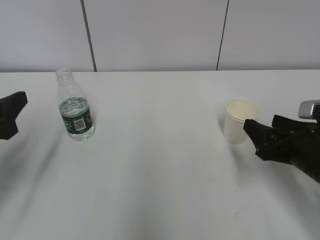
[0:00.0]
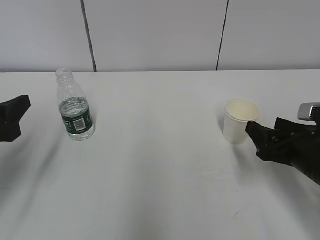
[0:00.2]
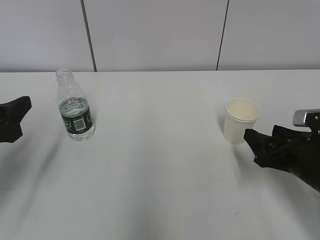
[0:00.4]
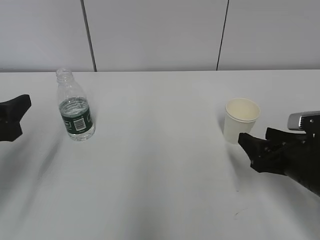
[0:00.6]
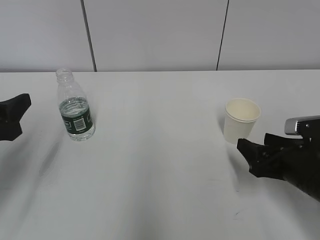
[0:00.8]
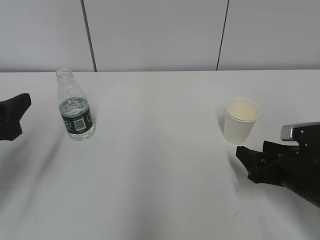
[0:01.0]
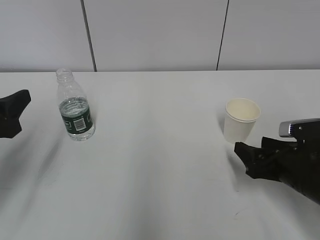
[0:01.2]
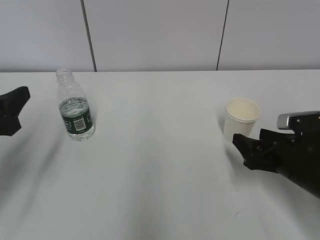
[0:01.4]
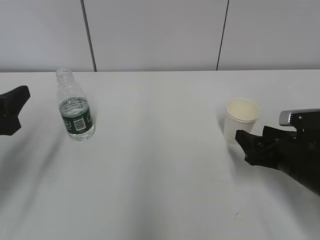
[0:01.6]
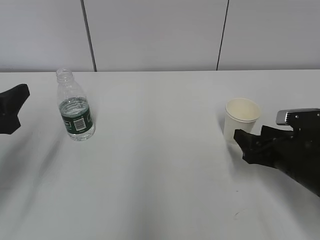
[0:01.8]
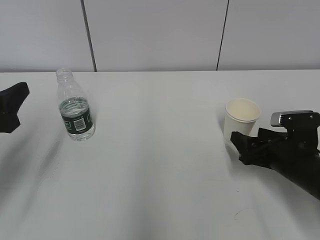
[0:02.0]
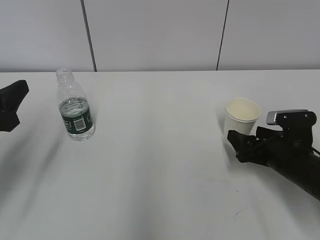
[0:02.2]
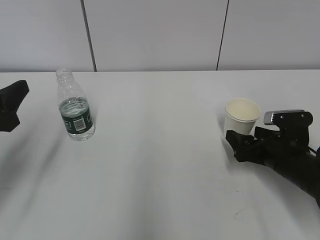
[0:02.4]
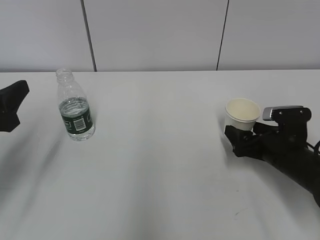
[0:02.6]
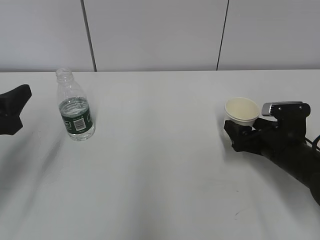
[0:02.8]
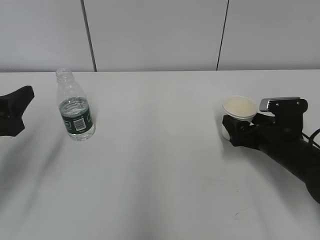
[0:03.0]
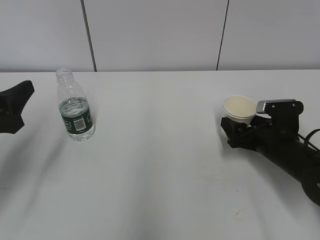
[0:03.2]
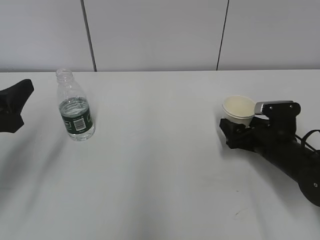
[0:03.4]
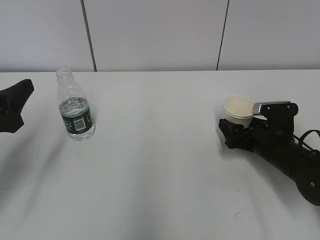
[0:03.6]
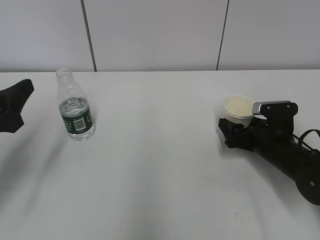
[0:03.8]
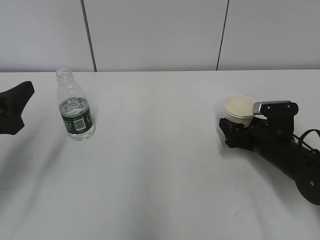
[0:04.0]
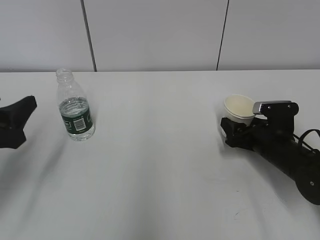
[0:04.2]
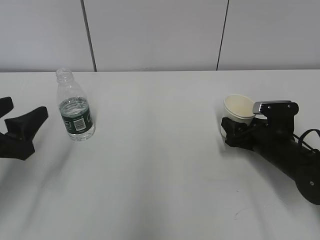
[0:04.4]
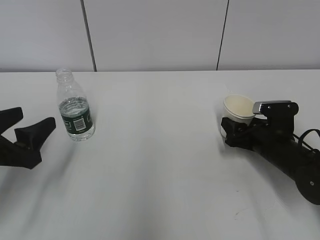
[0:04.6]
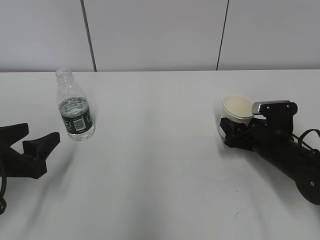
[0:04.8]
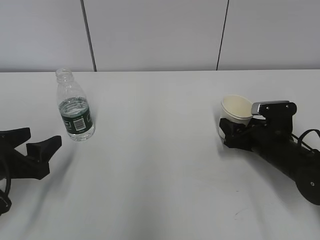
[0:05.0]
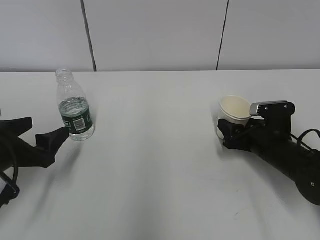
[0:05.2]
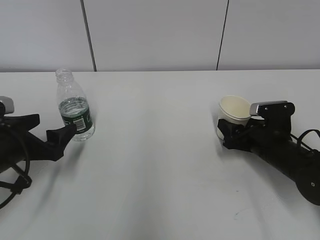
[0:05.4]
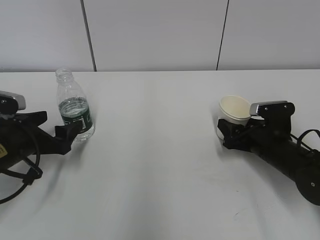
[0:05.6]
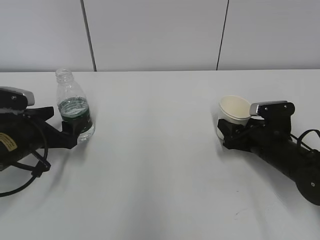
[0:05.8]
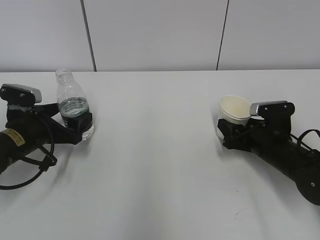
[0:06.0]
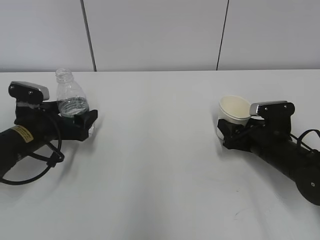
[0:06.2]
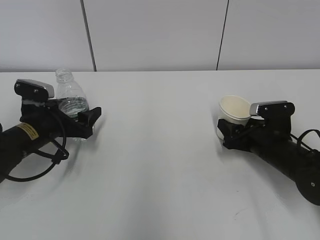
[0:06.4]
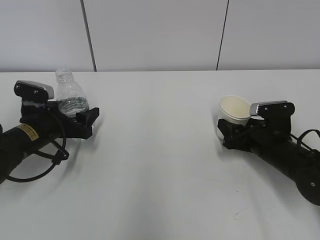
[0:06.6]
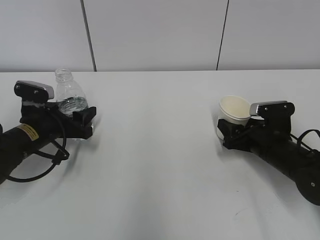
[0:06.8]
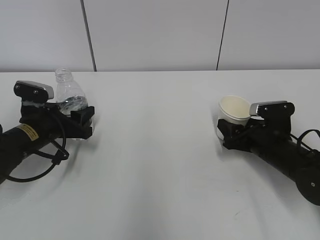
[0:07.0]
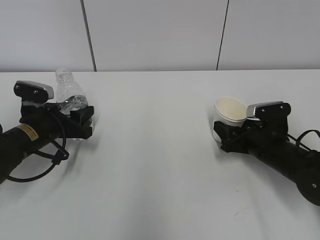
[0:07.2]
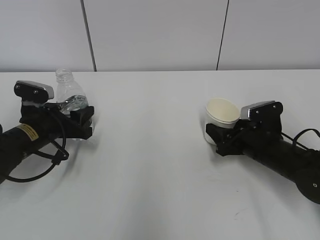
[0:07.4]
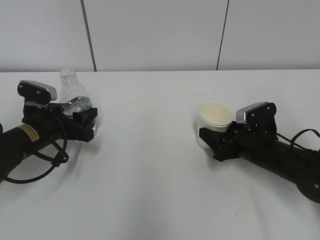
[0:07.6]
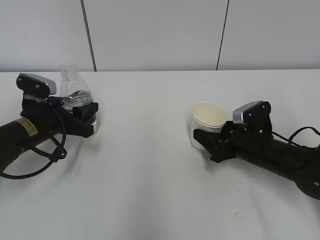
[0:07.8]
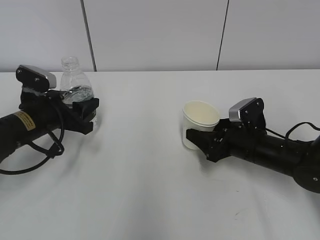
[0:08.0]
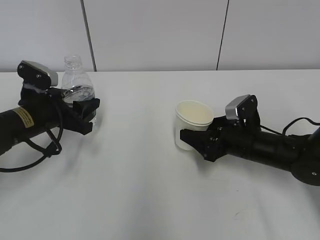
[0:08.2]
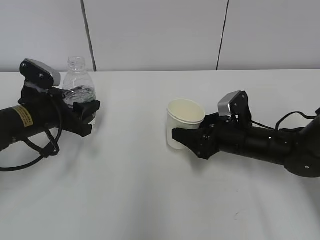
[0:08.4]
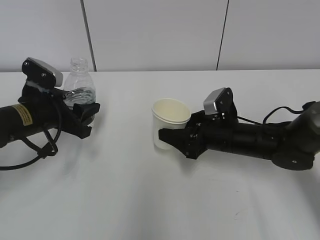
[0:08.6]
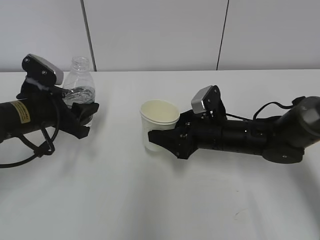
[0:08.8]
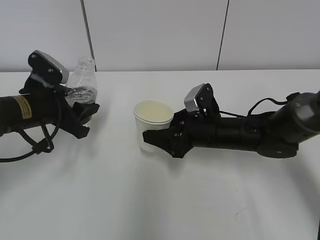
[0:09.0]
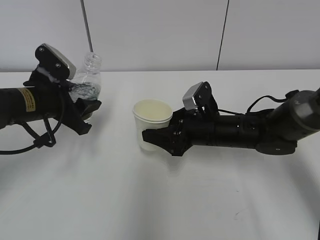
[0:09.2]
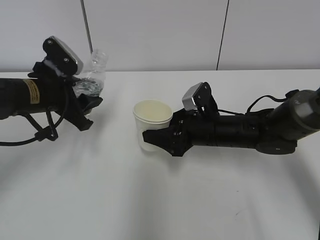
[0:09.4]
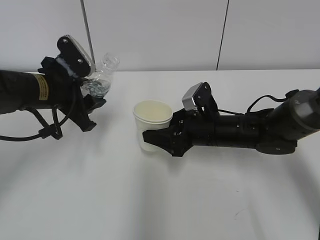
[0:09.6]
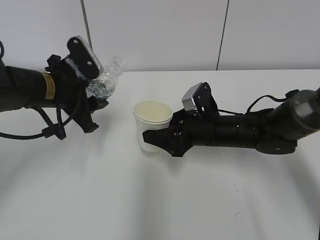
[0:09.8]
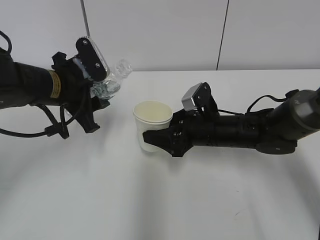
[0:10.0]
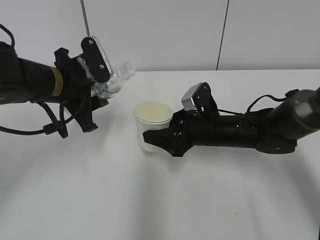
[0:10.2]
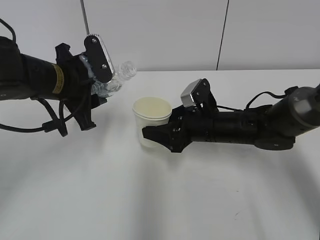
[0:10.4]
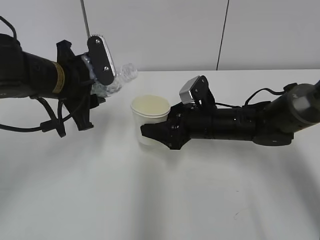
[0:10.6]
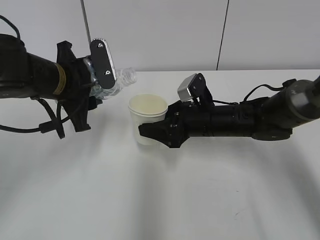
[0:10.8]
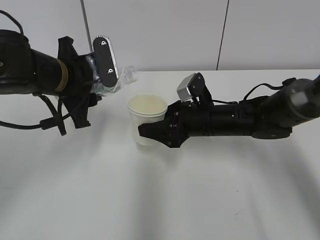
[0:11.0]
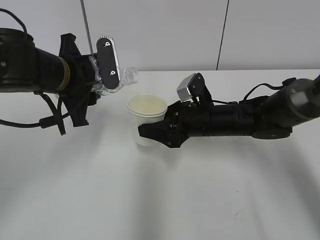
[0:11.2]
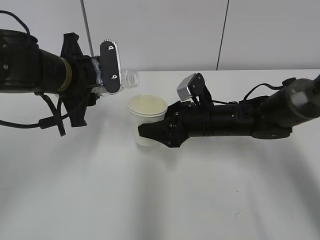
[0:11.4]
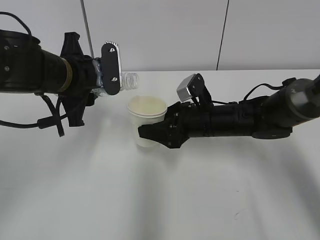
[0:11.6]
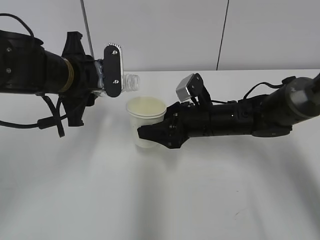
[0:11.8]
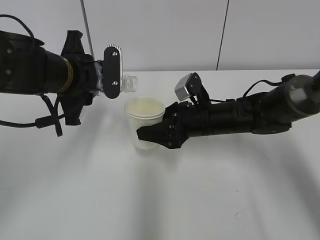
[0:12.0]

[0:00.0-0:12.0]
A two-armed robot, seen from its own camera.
Step, 0:00.0 to 0:04.2: Grasp the paper cup with the right gripper.
Step, 0:04.4 to 0:07.0: Grasp the bottle with the left gripper.
0:00.0 to 0:01.6: There are only small adjustments of the grippers.
0:01.6 to 0:03.0: The right gripper is displaced forward by roughly 5 cm, and opens up.
0:03.0 to 0:04.4: The right gripper closes its fingers.
0:04.4 to 0:06.0: The left gripper shifts about 15 cm forward and downward.
0:06.0 to 0:07.6: The left gripper closes.
0:07.6 to 0:09.0: The right gripper heads to the left, covering about 10 cm, while the left gripper heads upward, covering roughly 5 cm.
0:09.0 to 0:10.4: The left gripper travels upward and to the right by roughly 10 cm.

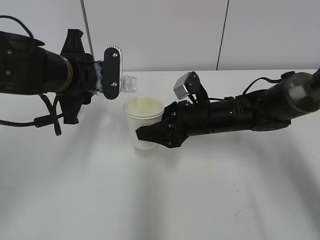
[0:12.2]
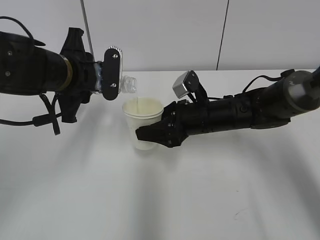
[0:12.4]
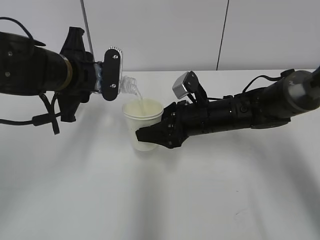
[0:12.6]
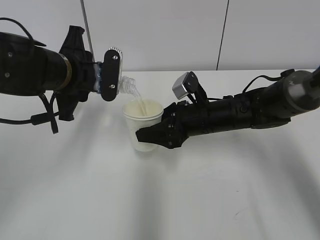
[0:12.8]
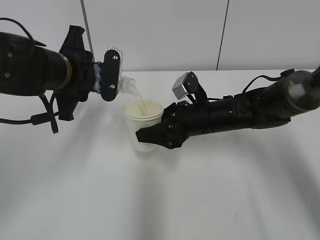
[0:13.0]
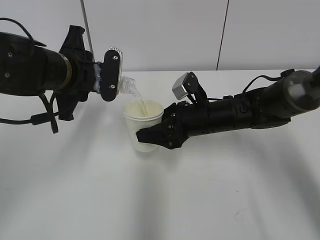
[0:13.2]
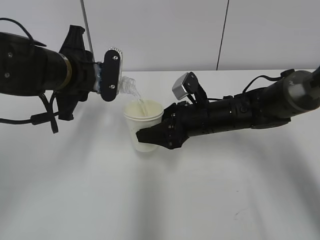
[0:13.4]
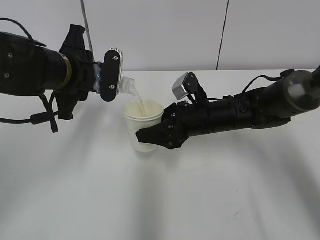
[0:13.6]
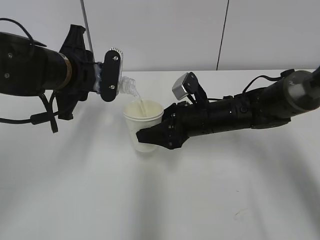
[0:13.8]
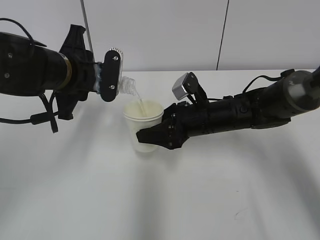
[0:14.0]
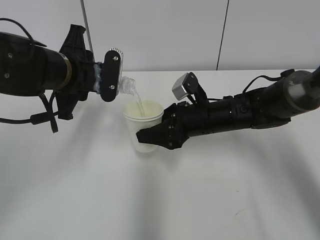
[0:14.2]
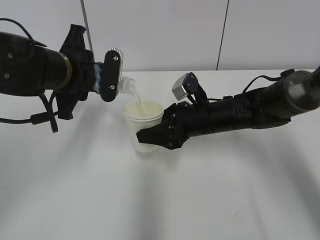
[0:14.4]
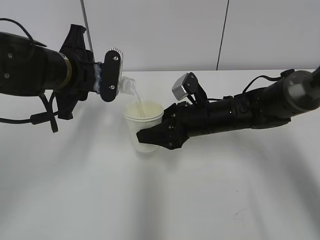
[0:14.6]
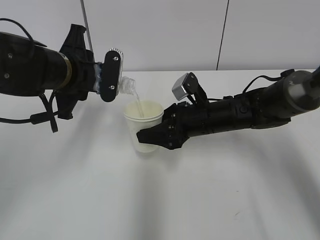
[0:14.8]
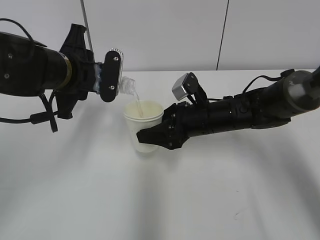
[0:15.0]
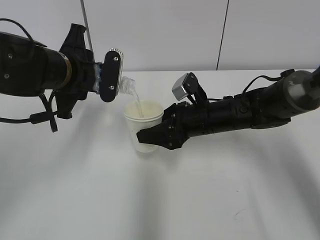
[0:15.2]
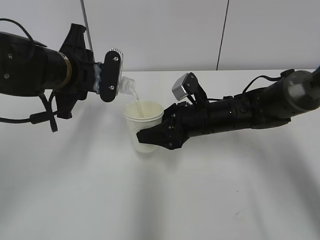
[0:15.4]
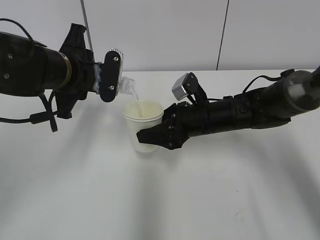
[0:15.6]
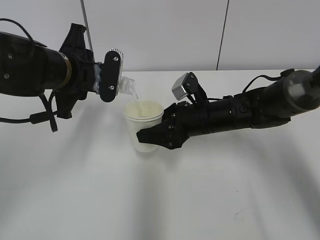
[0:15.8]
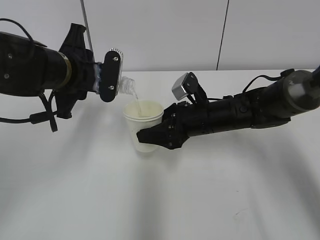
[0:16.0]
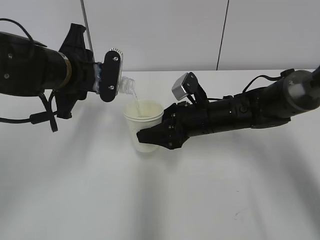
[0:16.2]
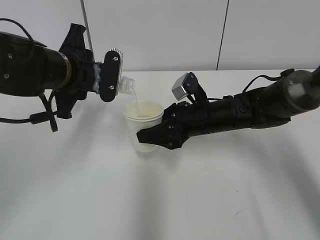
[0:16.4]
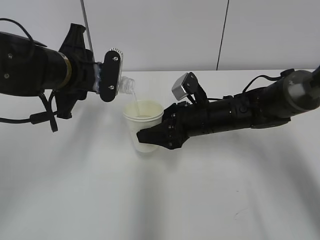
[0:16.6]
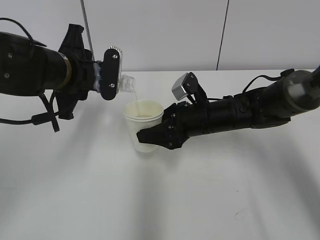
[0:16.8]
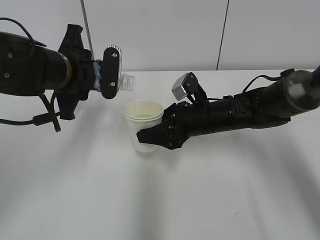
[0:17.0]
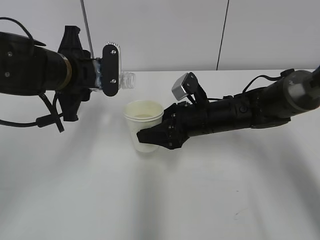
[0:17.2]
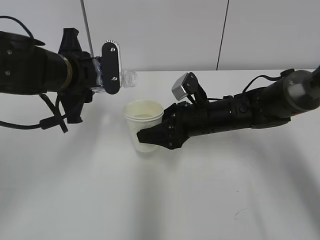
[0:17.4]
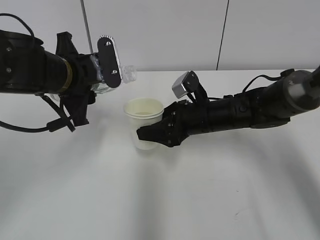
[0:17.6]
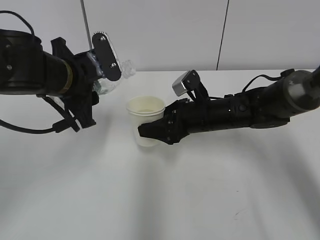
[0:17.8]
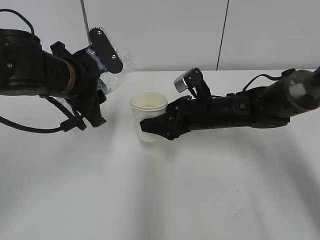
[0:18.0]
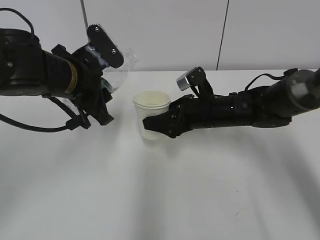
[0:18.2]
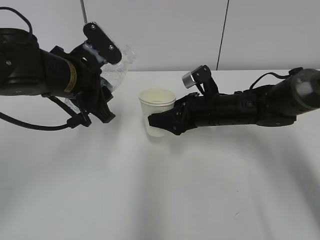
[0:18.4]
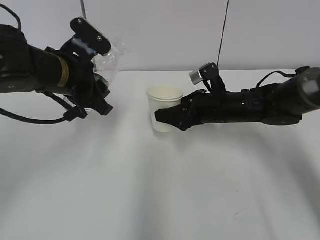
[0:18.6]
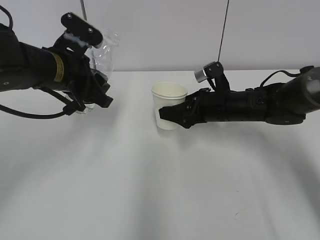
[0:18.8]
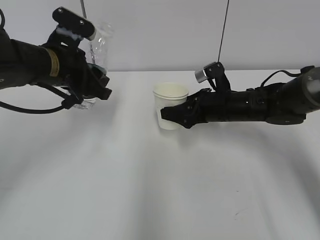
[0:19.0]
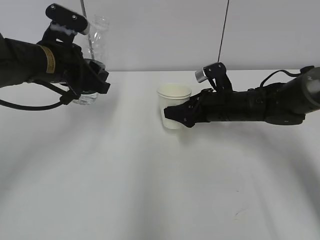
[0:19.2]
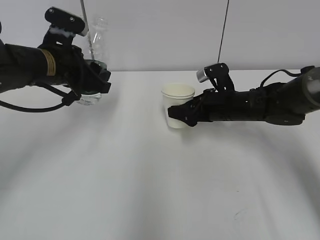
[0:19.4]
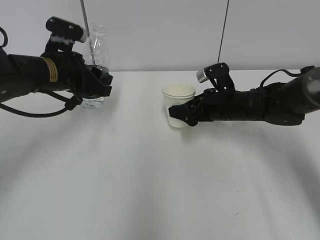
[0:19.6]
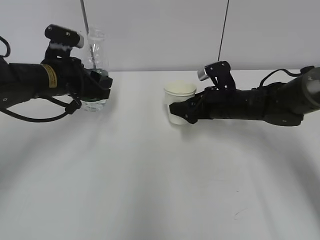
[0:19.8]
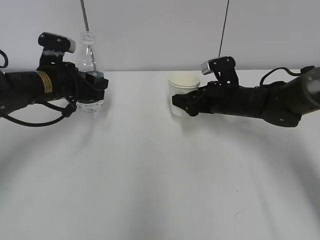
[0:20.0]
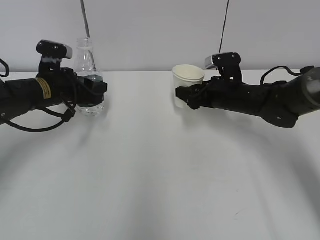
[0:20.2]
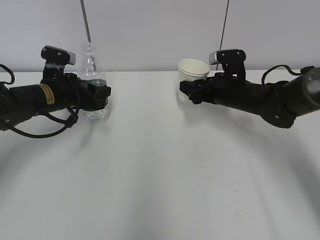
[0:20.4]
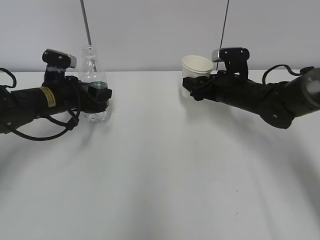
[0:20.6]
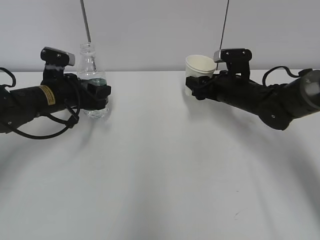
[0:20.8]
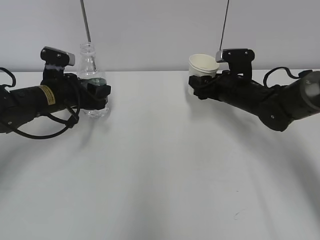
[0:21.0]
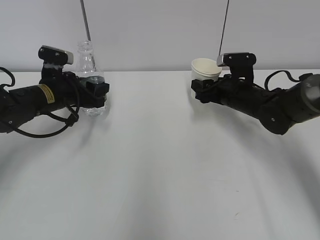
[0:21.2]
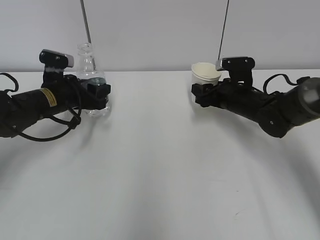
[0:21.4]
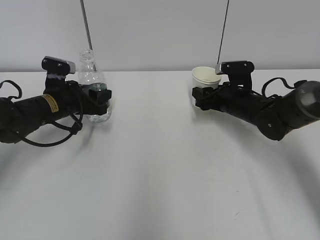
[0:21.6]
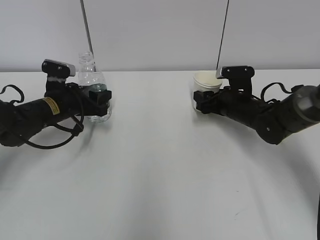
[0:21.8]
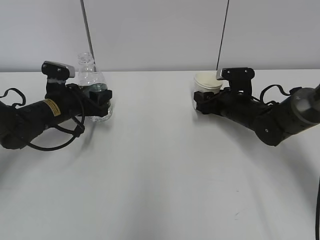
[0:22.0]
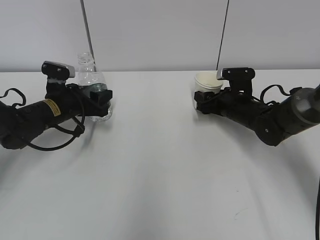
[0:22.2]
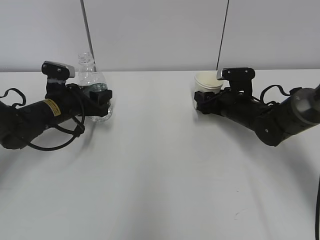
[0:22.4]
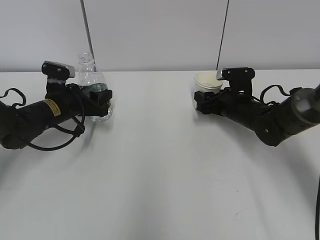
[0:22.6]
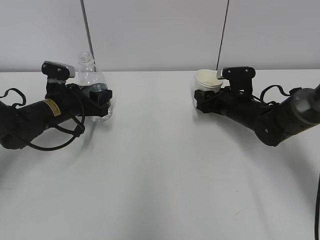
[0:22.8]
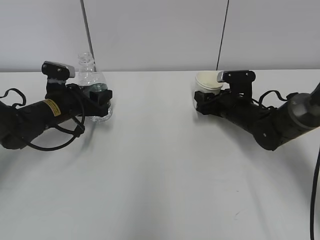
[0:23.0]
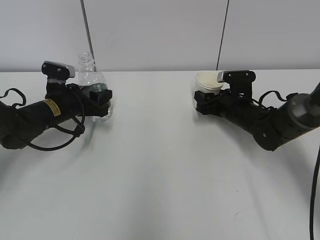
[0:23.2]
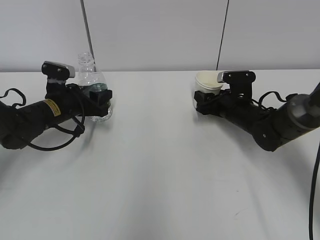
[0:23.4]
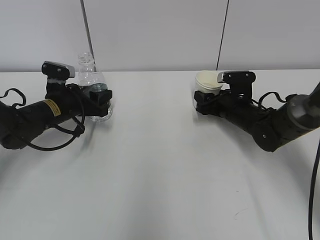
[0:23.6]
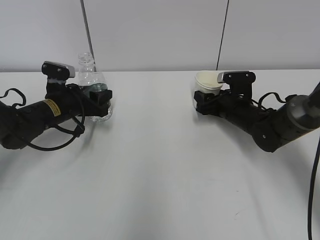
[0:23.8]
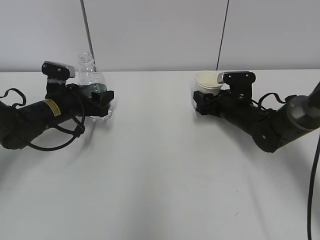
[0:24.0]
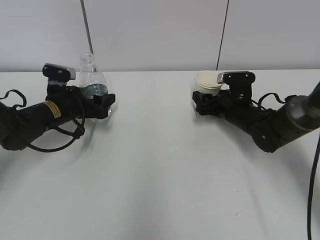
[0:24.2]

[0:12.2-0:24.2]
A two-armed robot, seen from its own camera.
Step, 0:12.2 to 0:17.4: Pour water from bottle to cup with the left gripper.
Step, 0:17.6 to 0:24.0: Place the bottle with the left gripper.
0:12.2 to 0:13.8: The grippers make only small movements.
0:13.8 to 0:16.6: Both grippers stay put.
0:18.2 to 0:19.8: The right gripper ends up about 5 cm from where it was, while the left gripper is displaced forward and to the left by some 5 cm.
0:19.8 to 0:21.2: The left gripper heads downward, covering about 5 cm.
0:21.2 to 0:22.6: The grippers move only a little.
0:22.6 to 0:24.2: The left gripper opens up; the right gripper opens its fingers.
